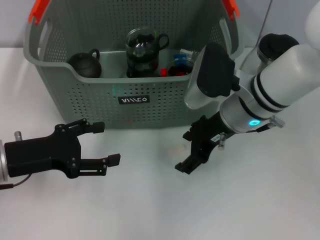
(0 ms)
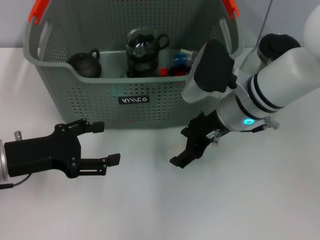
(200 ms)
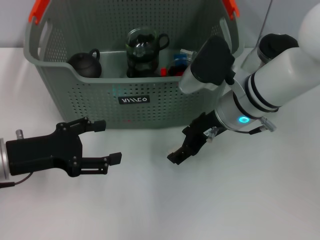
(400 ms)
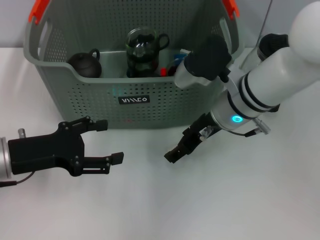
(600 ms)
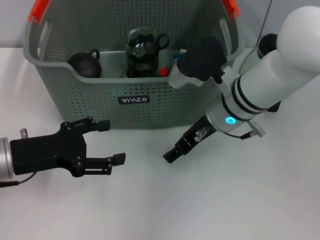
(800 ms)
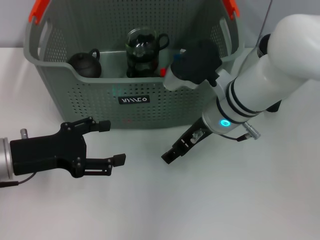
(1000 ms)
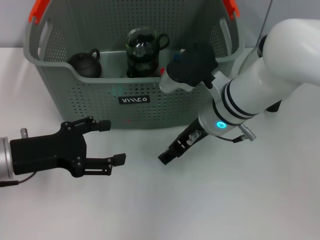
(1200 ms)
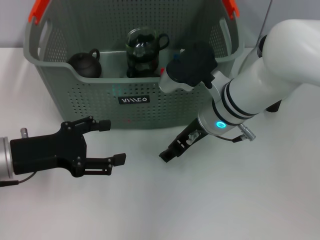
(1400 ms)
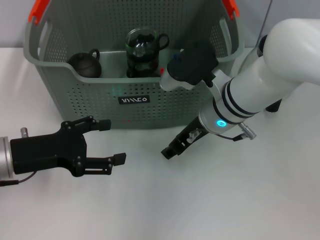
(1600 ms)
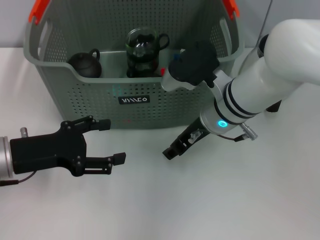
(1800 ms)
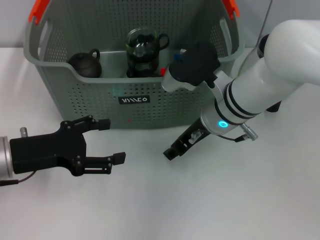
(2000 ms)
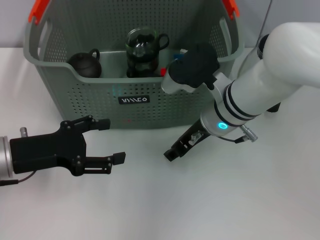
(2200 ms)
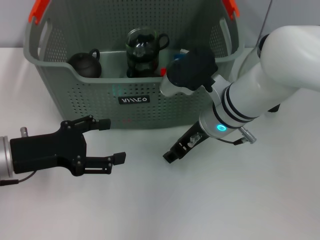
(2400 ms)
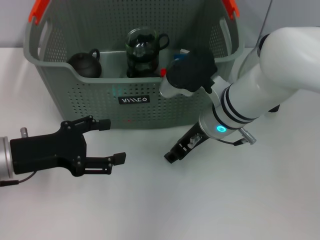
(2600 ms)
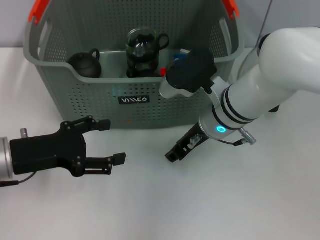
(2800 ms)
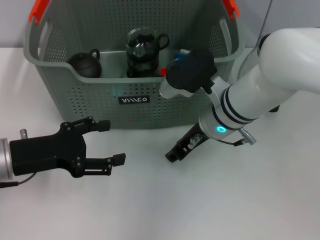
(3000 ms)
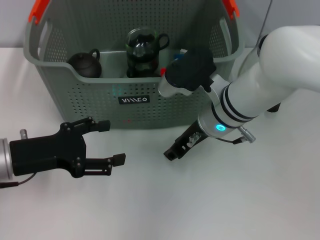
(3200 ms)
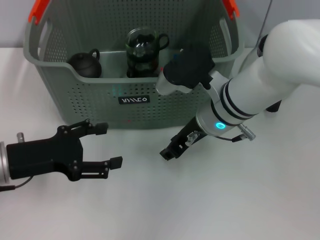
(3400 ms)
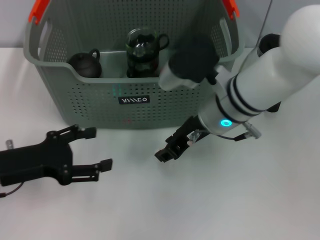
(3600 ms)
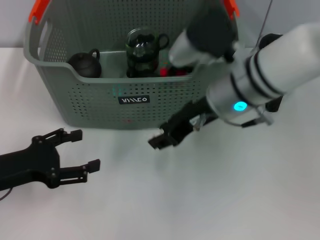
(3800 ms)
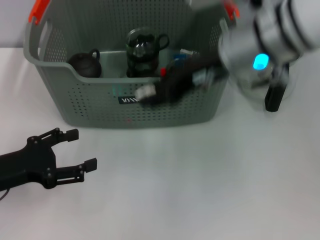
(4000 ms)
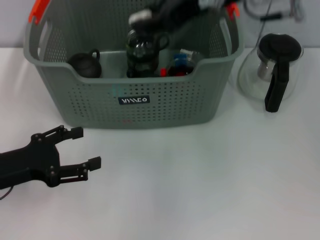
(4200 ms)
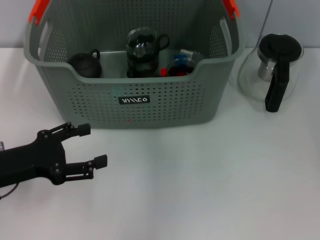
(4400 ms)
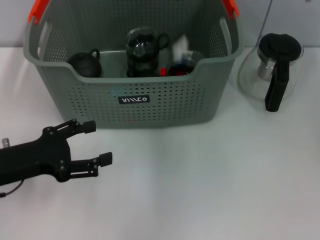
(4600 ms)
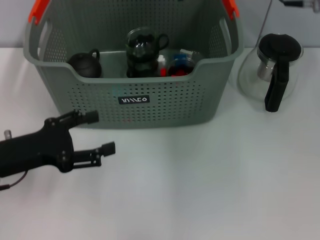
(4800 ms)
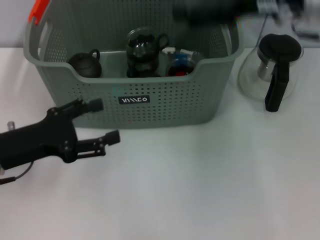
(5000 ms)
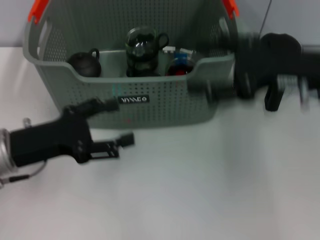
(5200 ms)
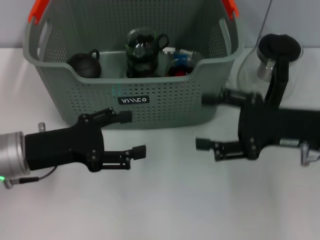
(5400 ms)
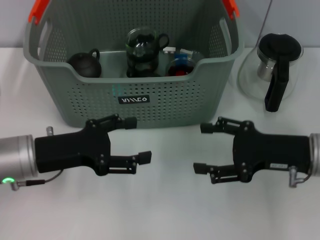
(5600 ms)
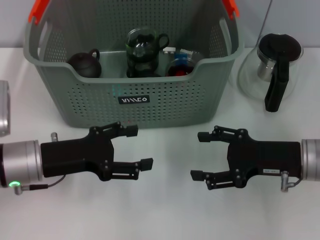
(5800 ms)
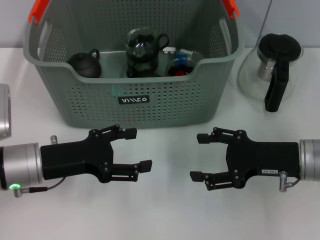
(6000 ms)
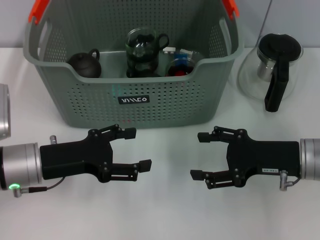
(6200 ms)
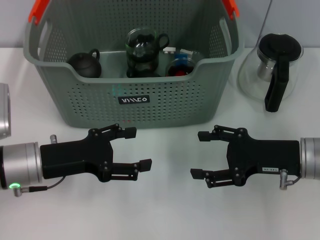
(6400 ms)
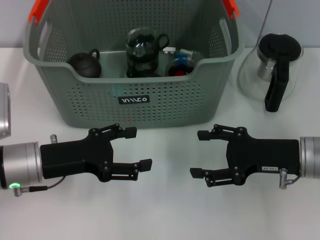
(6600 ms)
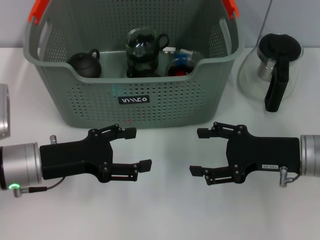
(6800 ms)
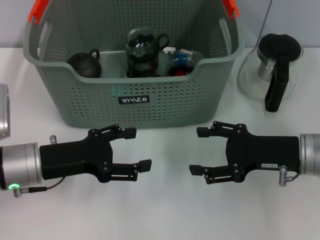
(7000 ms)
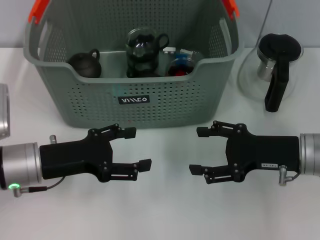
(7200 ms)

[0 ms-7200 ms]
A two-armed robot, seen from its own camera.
Task of the whole recording: pick up the teacup on the table and place it into the storage bin, pick up the block on the table and place it into the storage bin.
Step, 0 ms to 2600 ms: Grasp the white block with right gripper.
Step, 3000 ms to 4800 ms: Place the white block in the storage box with right gripper.
1400 ms to 2800 ms: The right gripper closes its fingers.
2800 ms to 4400 ms: The right gripper heads upward, covering roughly 20 cm.
4400 ms to 5800 ms: The left gripper is displaced to the right by about 5 cm, while the right gripper moves downward, backward and to the right, about 30 cm, and opens its fingers.
5800 ms to 7200 ms: Both grippers stay put.

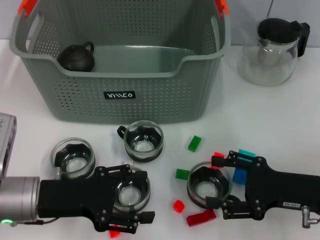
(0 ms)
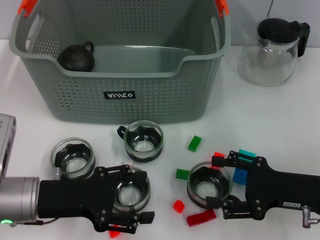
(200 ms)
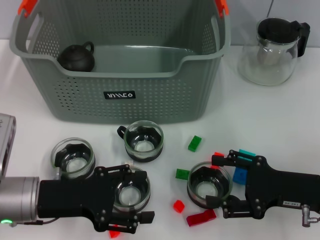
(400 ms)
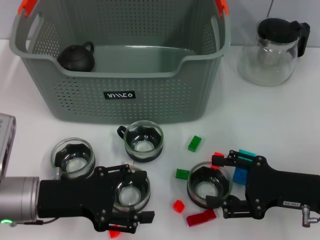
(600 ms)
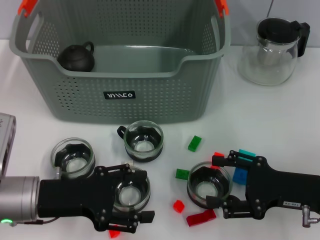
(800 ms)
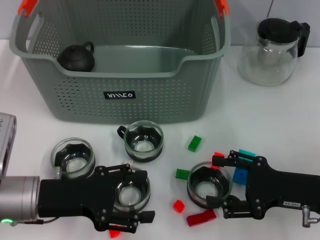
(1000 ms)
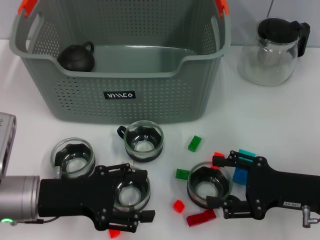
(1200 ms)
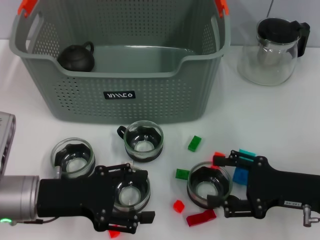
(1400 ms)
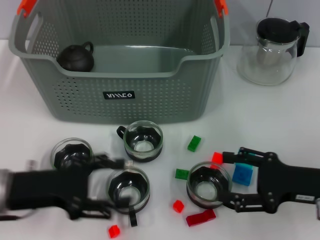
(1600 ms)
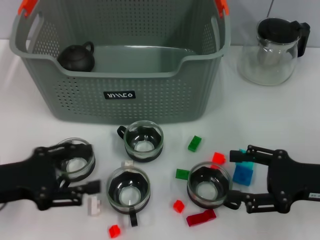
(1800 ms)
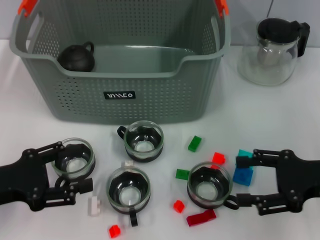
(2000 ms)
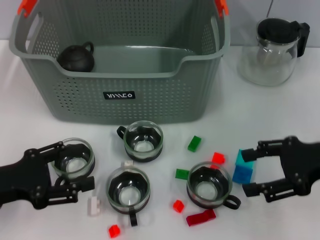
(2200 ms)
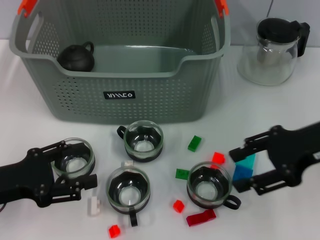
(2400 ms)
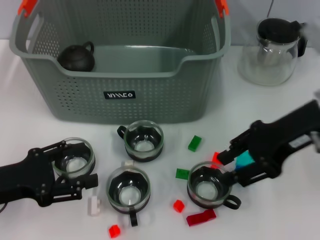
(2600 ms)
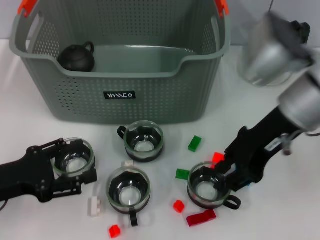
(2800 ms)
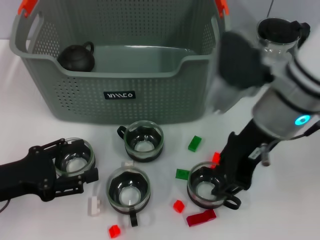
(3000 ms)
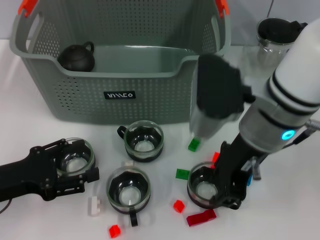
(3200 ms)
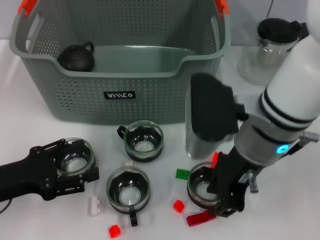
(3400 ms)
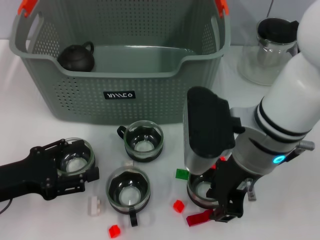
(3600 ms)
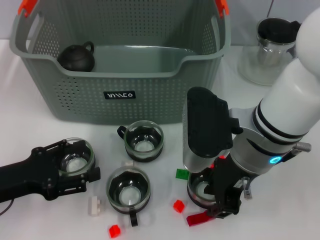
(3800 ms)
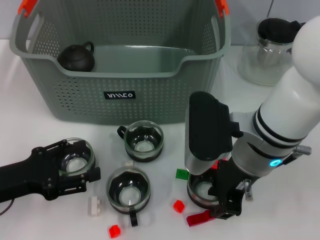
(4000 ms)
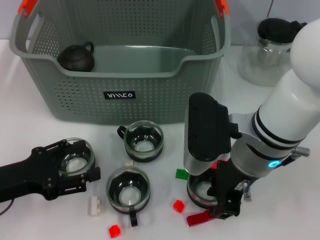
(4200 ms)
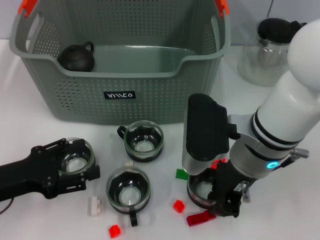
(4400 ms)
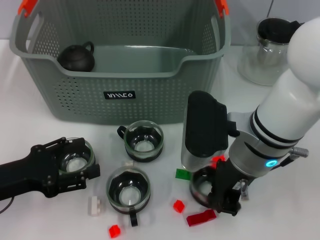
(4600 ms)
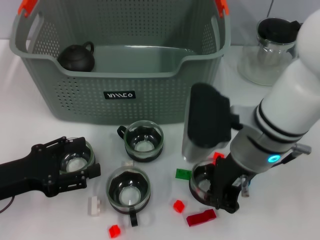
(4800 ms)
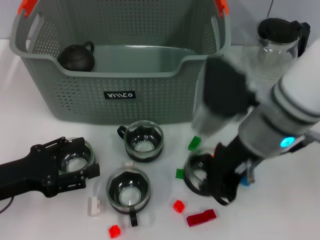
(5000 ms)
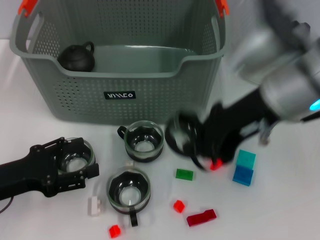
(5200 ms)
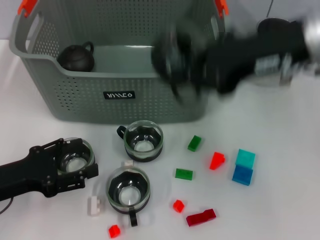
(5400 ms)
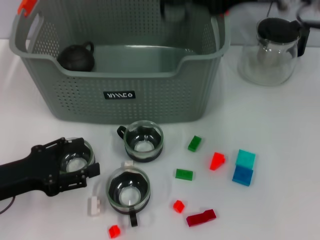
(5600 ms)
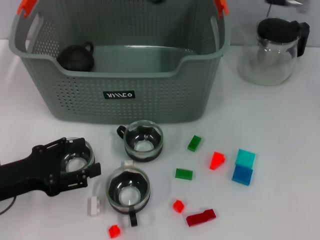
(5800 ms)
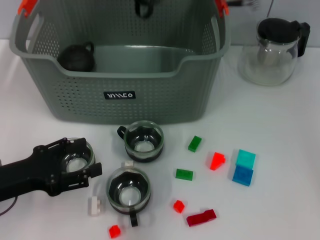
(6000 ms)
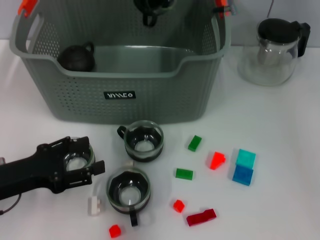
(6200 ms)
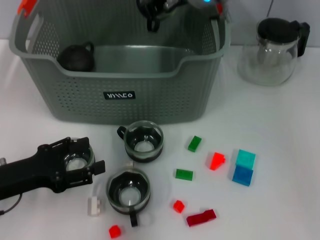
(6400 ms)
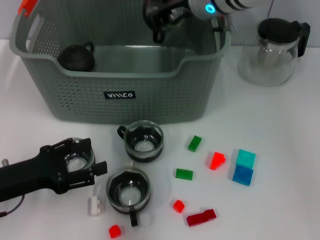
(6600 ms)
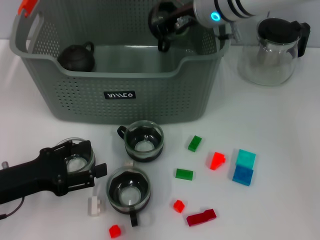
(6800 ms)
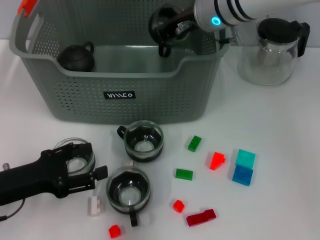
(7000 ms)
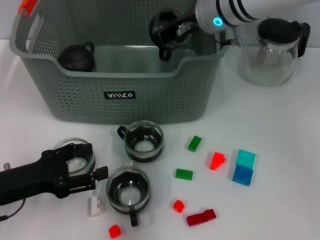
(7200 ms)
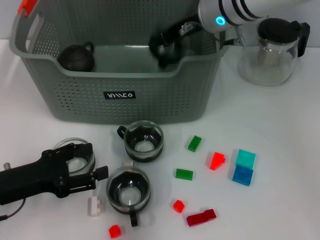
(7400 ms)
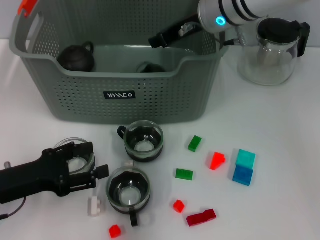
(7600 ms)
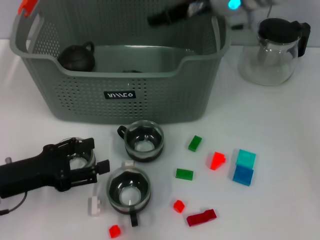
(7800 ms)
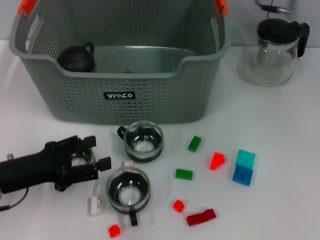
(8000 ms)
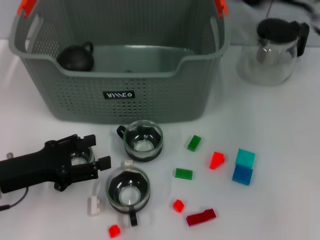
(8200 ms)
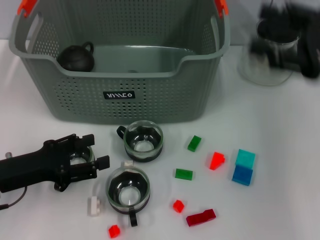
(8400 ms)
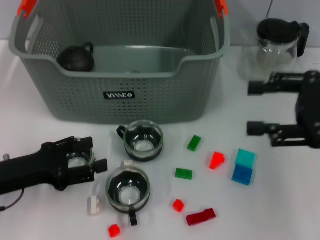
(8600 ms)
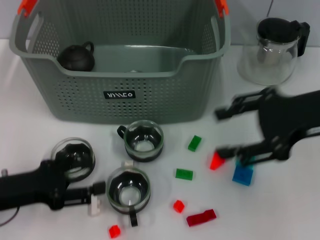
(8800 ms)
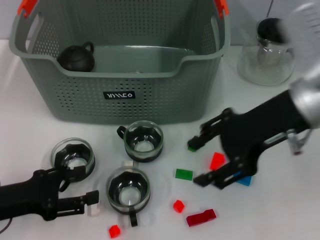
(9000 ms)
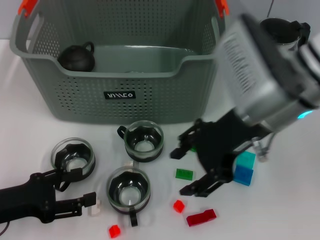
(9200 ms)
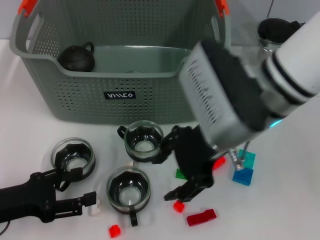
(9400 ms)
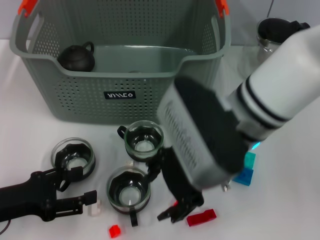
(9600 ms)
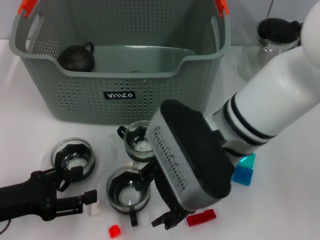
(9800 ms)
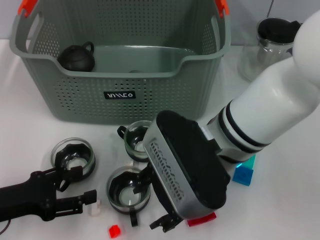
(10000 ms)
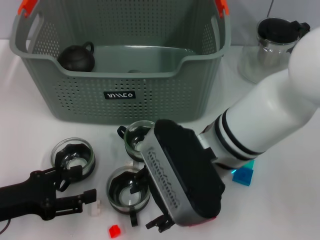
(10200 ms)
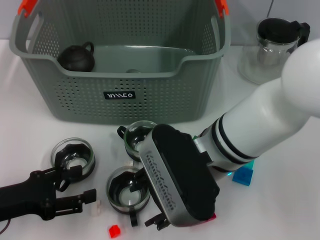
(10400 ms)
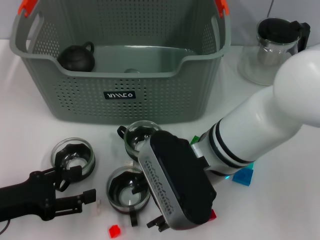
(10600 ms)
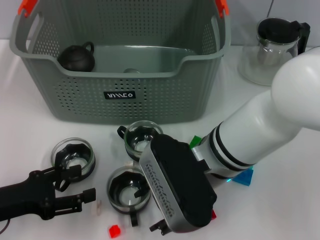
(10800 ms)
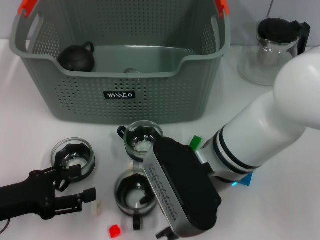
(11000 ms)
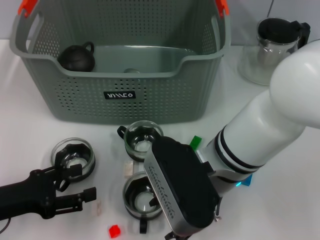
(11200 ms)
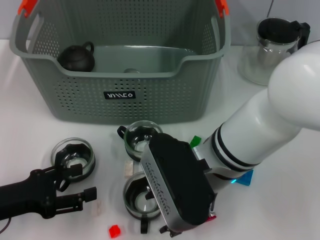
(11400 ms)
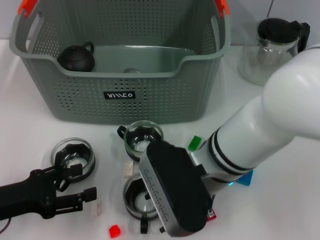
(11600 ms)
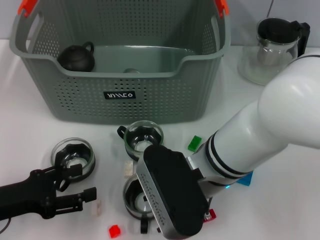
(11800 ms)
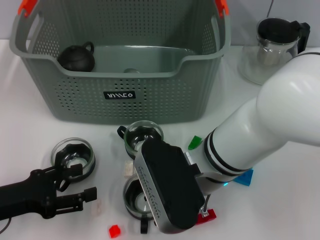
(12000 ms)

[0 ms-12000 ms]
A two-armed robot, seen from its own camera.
Task of the whole recording: pick up the teacup on the table and place it into the storage bin, pick up the block on the table and place it into the storage bin.
Step, 1400 ms to 4600 ms: Grasp the cup with right gripper.
Step, 4800 ms to 7600 ms: Place the cup in the storage box with right gripper.
0 ms to 1600 ms: The grippers make only small movements.
1600 ms to 3000 ms: The right gripper shifts roughly 20 cm to the left, upward and forward, and closes its fingers.
3000 ms to 4400 ms: The right gripper moves downward, about 5 cm.
4400 ms to 6000 ms: The right gripper moves forward and upward, some 20 cm, and closes.
6000 ms to 7600 ms: The right gripper goes approximately 5 cm downward.
7600 ms to 9000 ms: The right gripper moves backward and to the right, roughly 15 cm, and opens its fingers.
9000 ms to 10400 ms: The right gripper moves to the left and downward, some 15 cm.
10400 ms to 12000 ms: The grippers stay close to where they were, moving slightly.

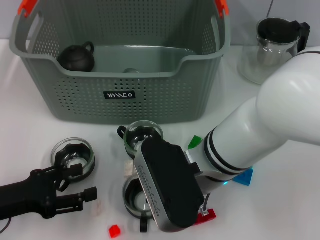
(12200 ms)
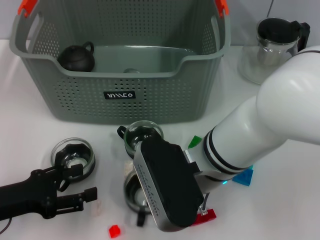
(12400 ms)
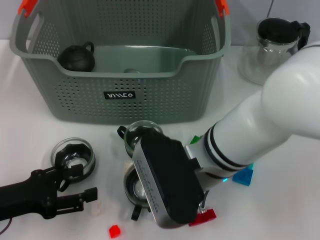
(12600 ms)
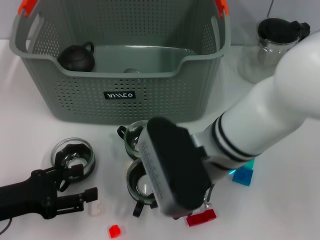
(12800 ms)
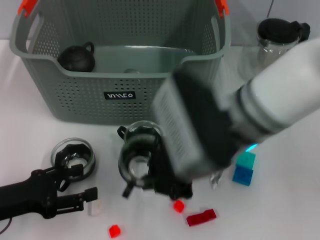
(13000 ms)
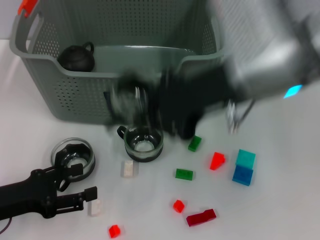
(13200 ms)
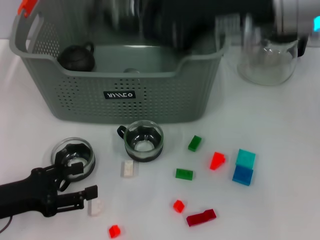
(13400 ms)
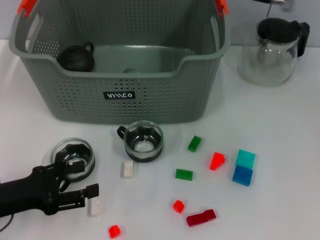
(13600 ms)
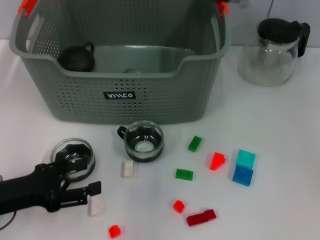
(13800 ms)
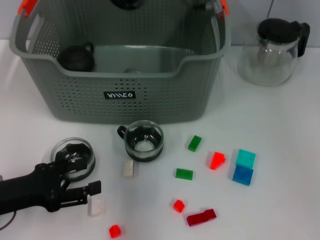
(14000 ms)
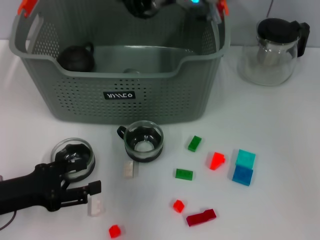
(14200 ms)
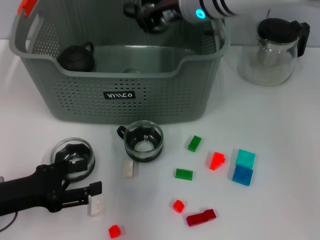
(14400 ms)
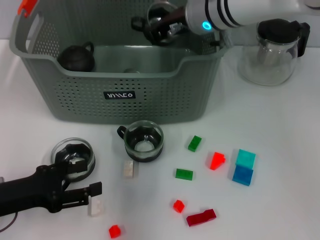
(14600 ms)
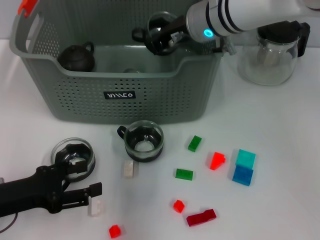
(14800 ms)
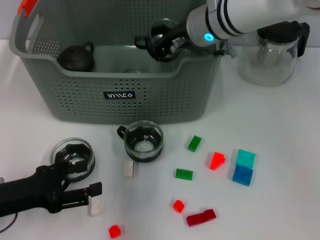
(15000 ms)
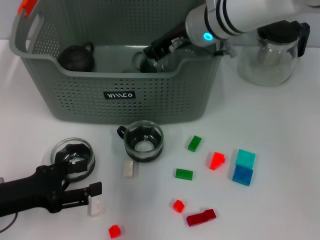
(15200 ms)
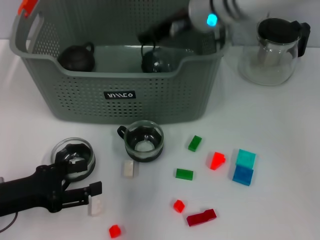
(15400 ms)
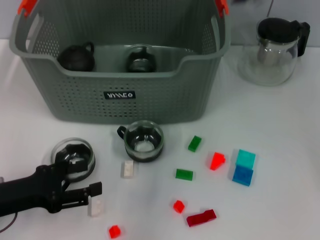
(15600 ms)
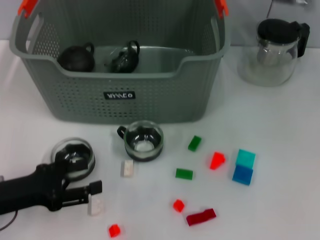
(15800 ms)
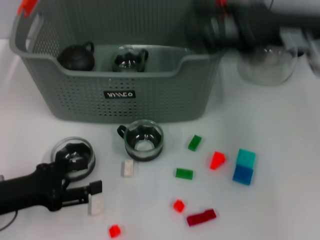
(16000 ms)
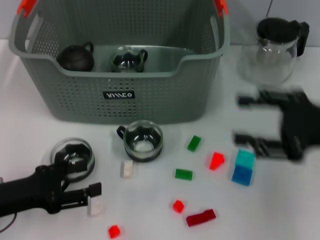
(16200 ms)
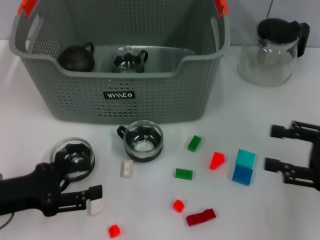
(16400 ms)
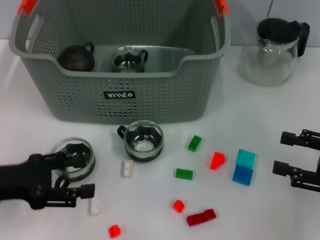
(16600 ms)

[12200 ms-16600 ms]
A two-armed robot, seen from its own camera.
Task of the whole recording: pick up the teacup on the table and place it into the storage bin, pick up the block on the table and place it into the storage bin.
Step, 12600 ms to 15400 ms: Place the cup in the storage box with right gripper.
12200 ms to 13600 ms: The right gripper heads upward and forward, covering roughly 20 cm, and closes.
13600 ms to 15200 ms: The right gripper shifts about 15 cm downward, forward and to the left.
15200 ms to 16600 ms: The right gripper shifts some 35 cm to the right and backward, and opens up.
